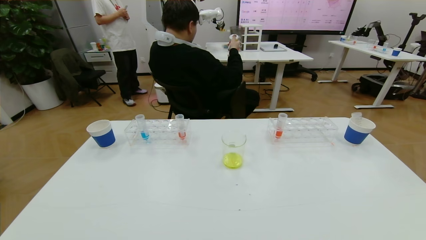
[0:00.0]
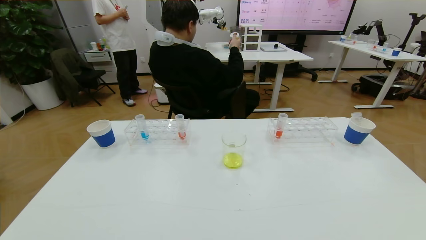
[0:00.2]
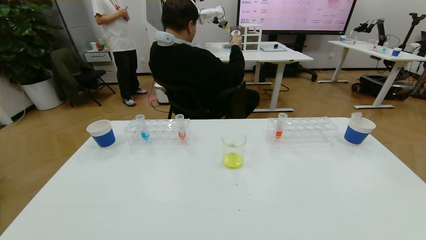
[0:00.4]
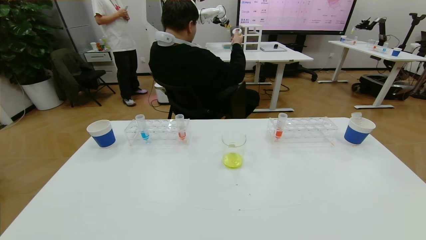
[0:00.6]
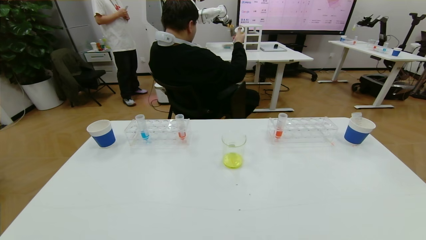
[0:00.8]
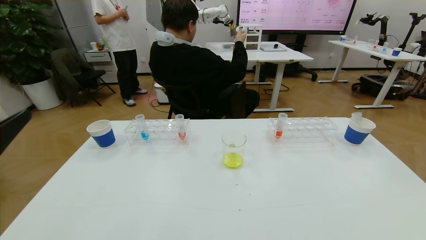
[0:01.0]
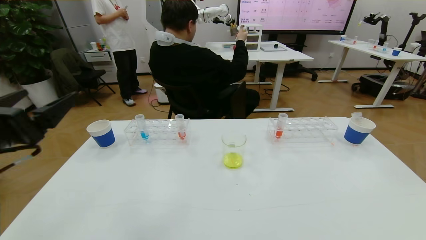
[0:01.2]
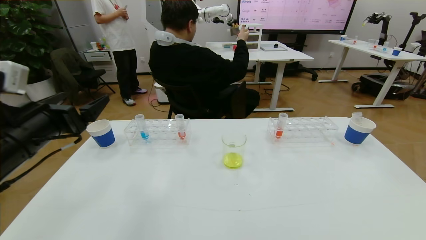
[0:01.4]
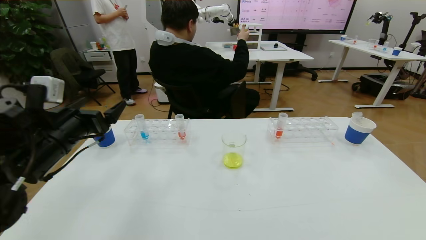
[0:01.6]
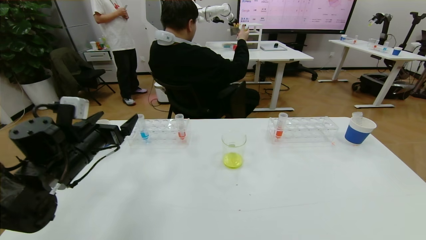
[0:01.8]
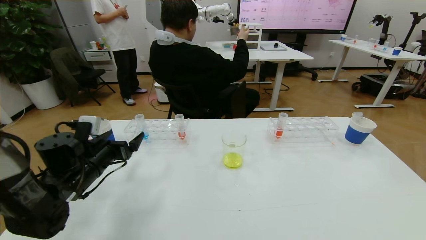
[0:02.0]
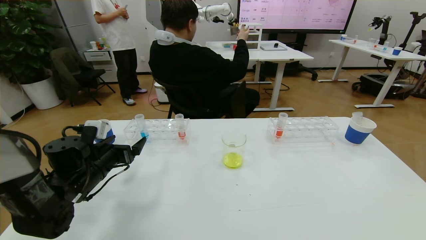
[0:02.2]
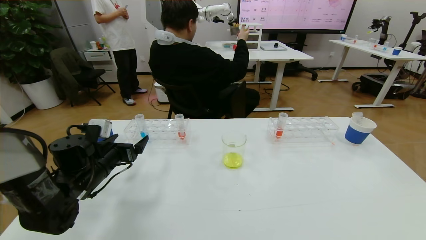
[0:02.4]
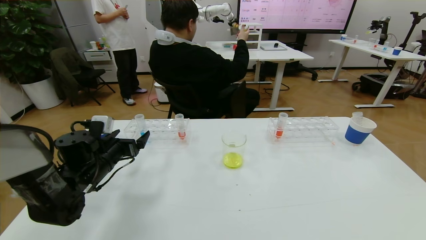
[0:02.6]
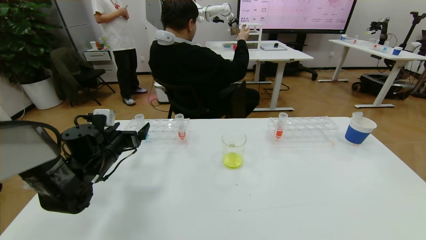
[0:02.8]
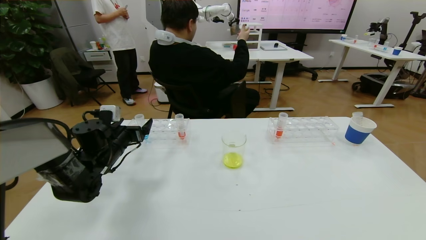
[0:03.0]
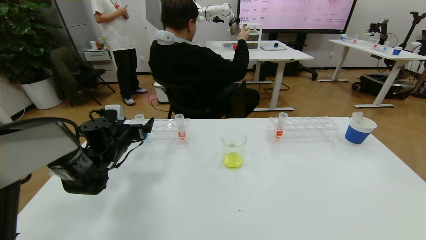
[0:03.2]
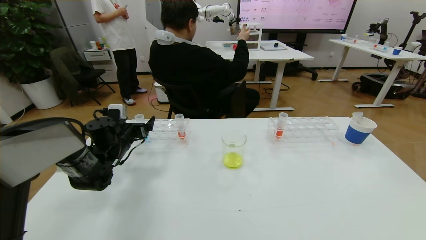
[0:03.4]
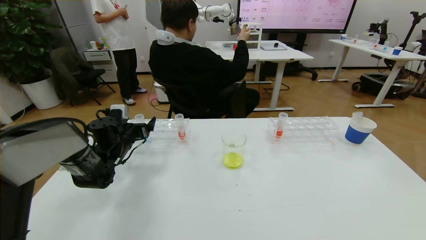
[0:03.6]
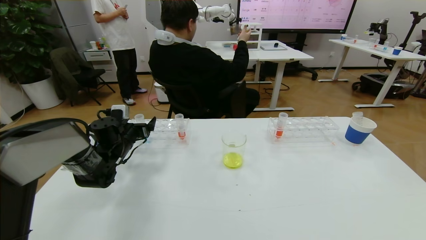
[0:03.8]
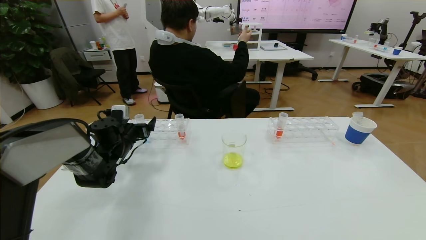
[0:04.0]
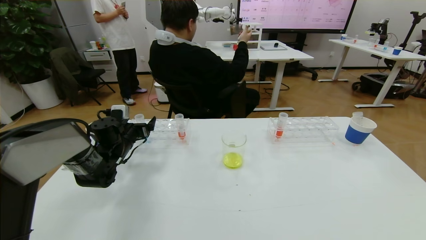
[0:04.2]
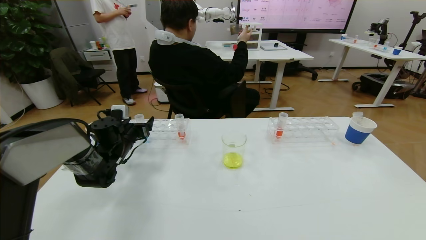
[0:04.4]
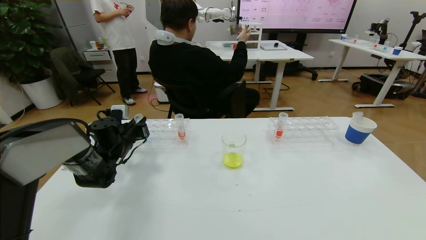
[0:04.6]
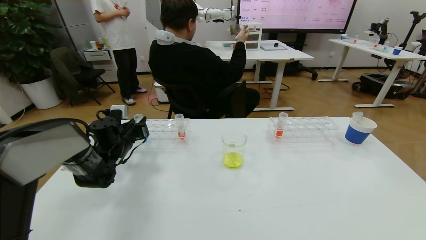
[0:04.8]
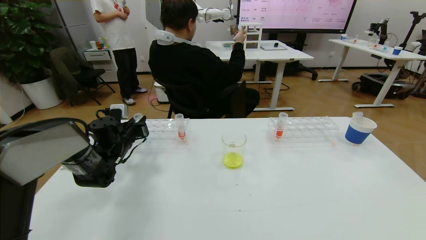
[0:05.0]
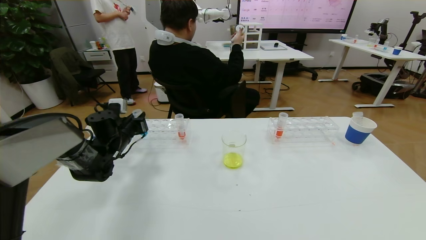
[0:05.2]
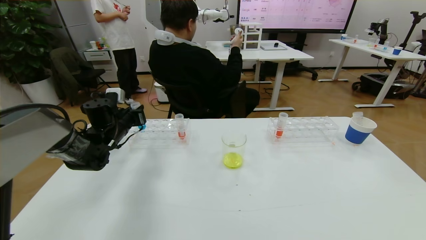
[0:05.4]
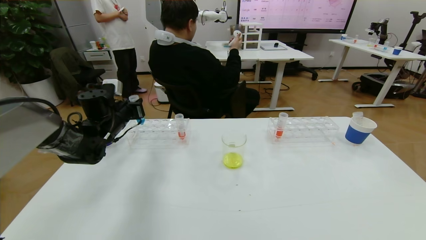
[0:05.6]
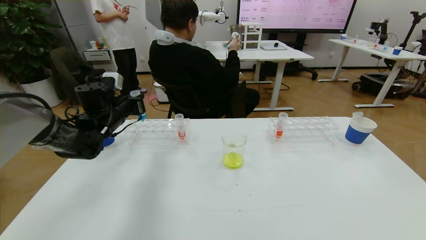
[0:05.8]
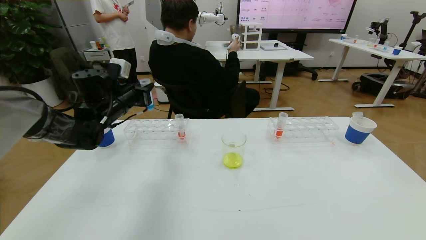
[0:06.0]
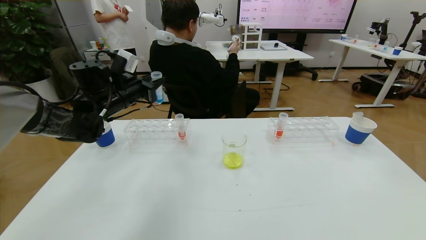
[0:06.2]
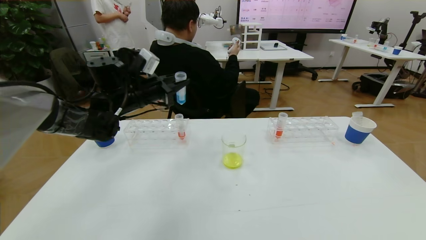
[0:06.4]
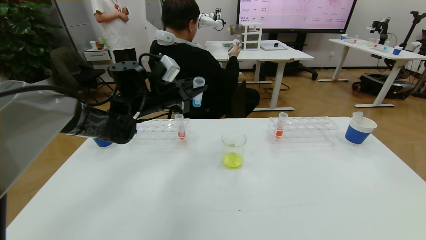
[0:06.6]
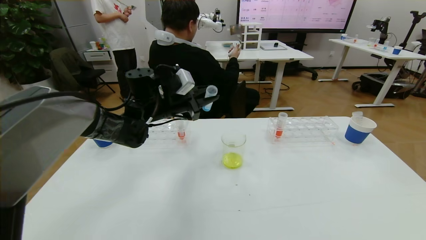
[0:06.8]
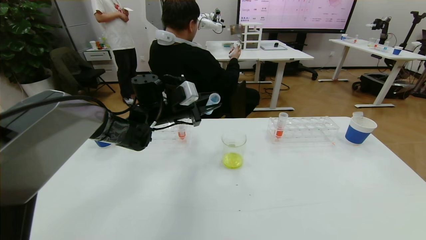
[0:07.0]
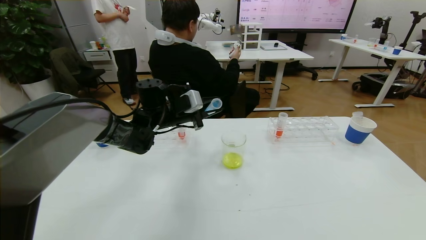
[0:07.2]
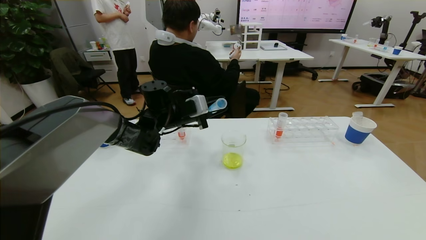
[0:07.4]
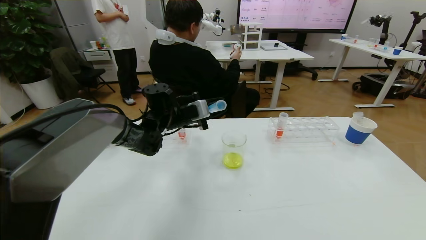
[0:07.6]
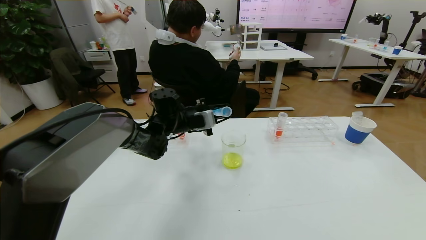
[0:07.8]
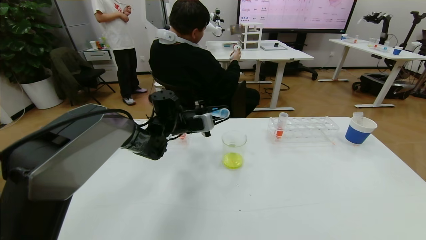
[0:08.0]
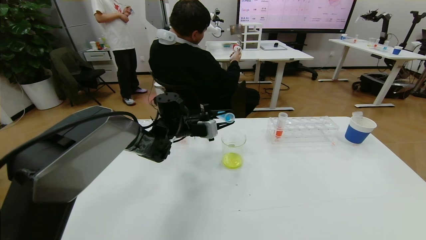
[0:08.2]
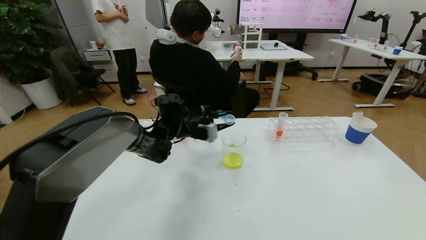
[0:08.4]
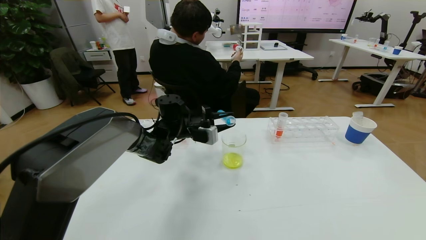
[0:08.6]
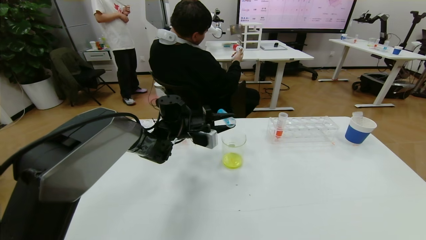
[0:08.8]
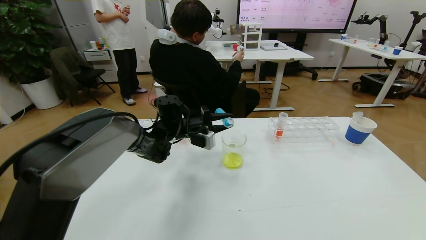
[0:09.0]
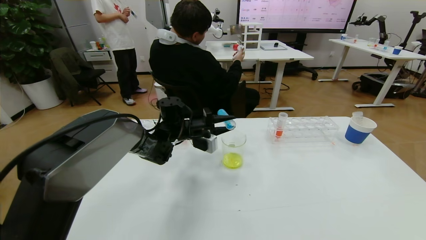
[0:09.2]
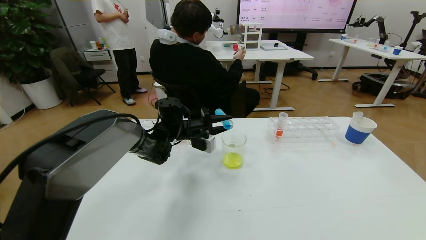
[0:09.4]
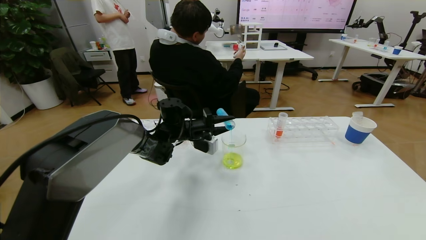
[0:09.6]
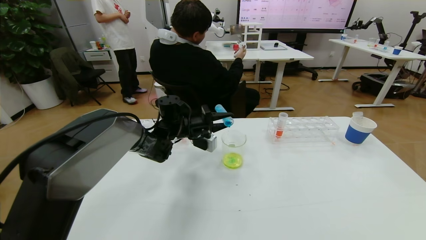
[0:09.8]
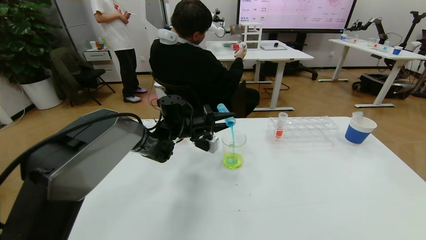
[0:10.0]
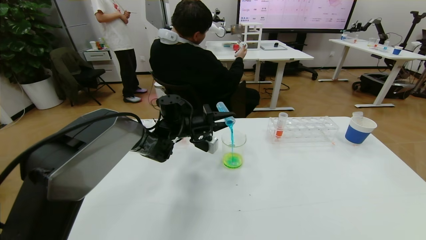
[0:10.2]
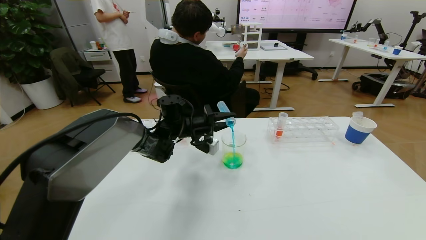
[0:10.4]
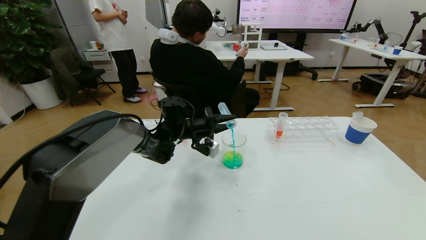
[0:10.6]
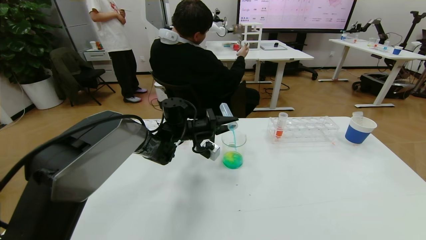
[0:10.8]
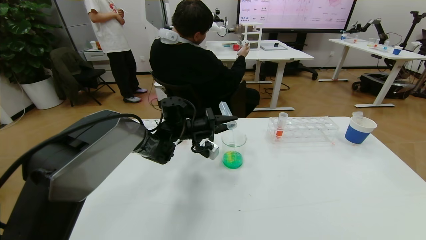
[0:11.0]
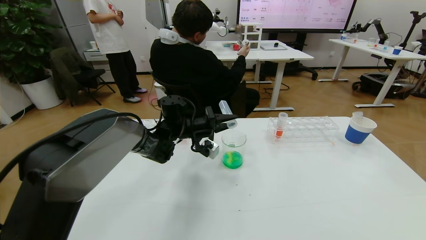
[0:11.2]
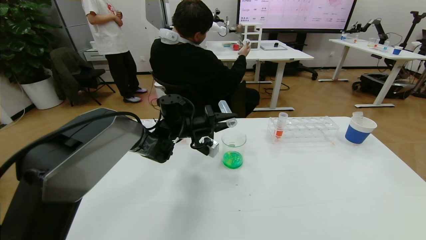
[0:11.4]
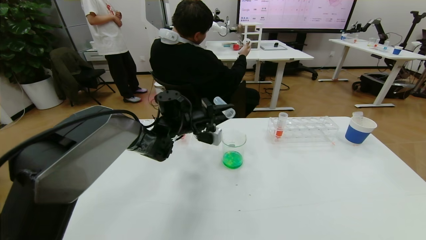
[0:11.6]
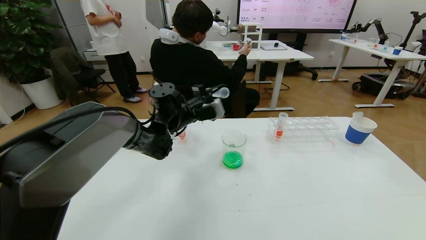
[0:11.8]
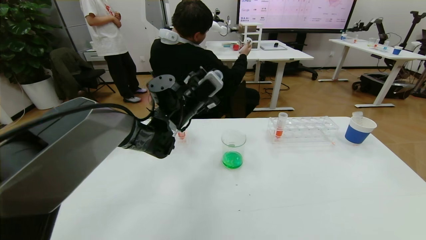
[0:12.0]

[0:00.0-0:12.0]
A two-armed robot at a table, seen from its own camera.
Task of the whole recording: pick up the test tube with yellow pigment and the test tube with blue pigment by grippers and pour them into the beaker.
0:00.0 to 0:01.6: The left gripper shifts some 30 cm forward.
0:01.6 to 0:03.0: The left gripper travels forward and downward by some 15 cm.
0:03.0 to 0:04.4: The left gripper moves about 5 cm.
0:04.4 to 0:06.0: The left gripper heads upward, covering roughly 15 cm, and closes up.
0:06.0 to 0:07.6: The left gripper goes approximately 15 cm to the right.
0:09.0 to 0:10.4: The grippers move only a little.
0:10.4 to 0:12.0: The left gripper heads upward, covering roughly 10 cm.

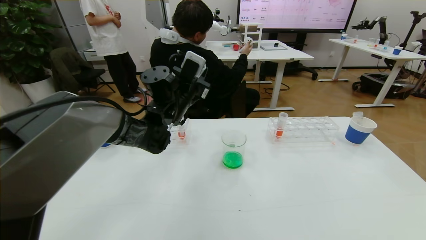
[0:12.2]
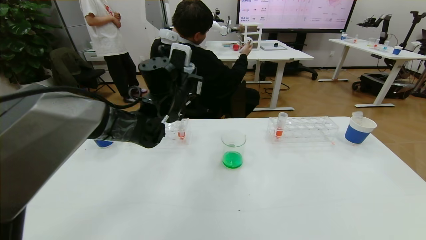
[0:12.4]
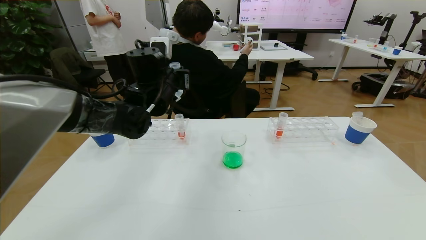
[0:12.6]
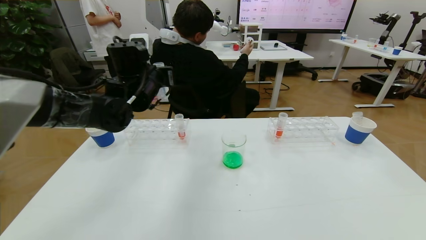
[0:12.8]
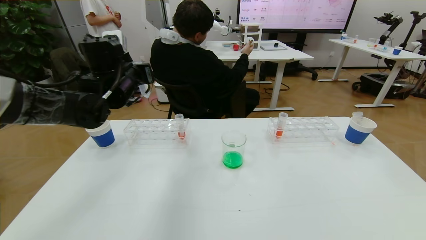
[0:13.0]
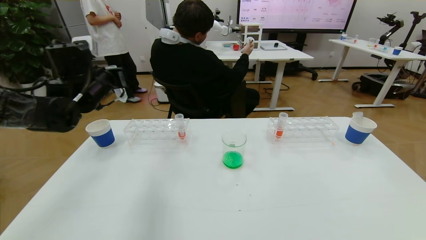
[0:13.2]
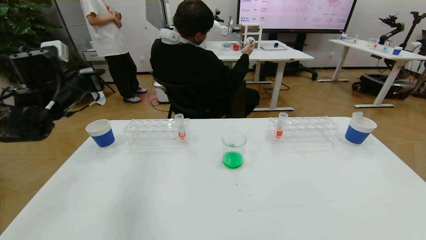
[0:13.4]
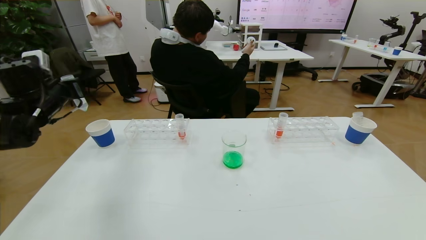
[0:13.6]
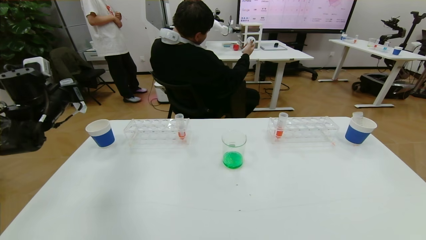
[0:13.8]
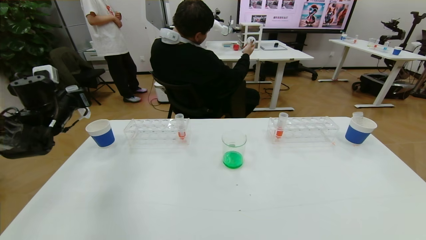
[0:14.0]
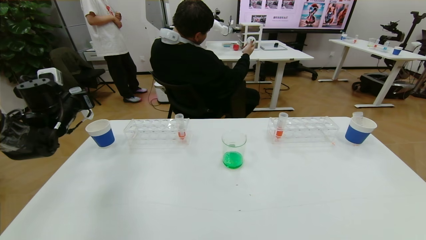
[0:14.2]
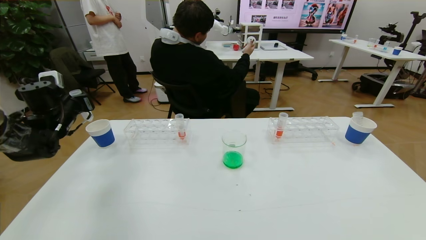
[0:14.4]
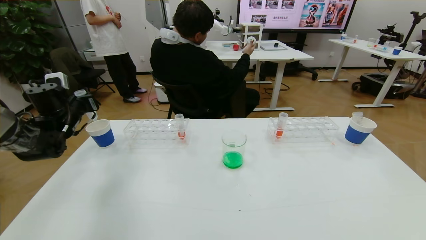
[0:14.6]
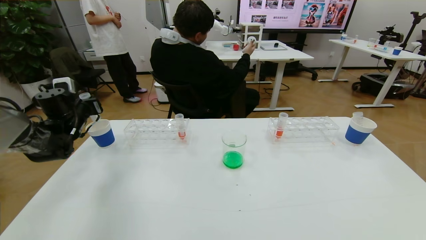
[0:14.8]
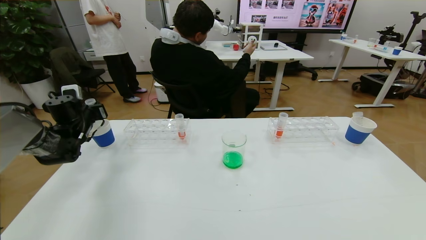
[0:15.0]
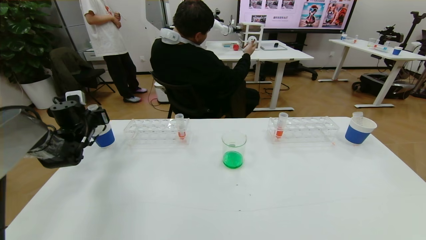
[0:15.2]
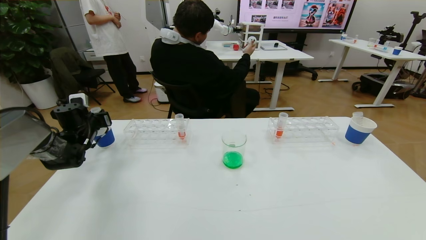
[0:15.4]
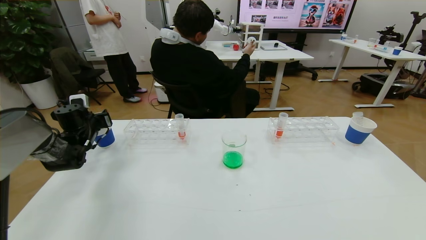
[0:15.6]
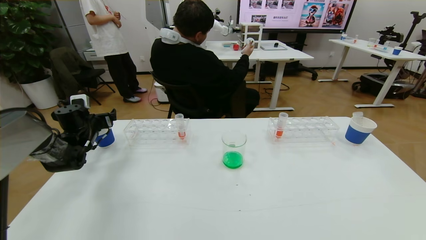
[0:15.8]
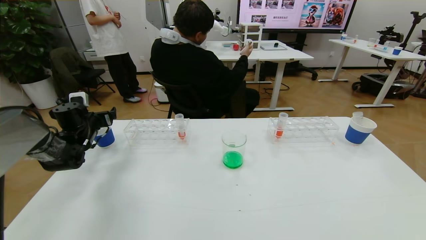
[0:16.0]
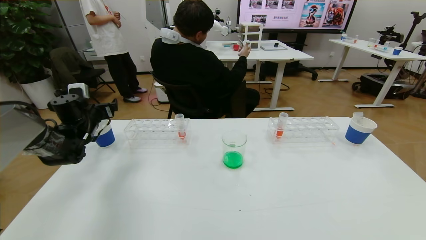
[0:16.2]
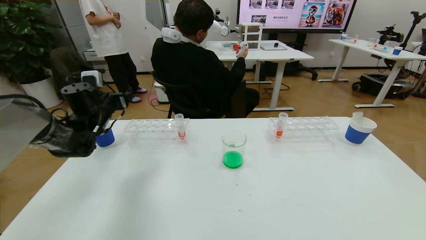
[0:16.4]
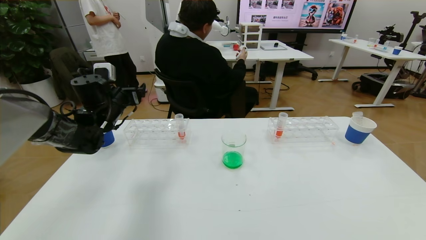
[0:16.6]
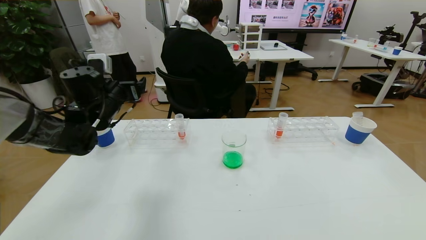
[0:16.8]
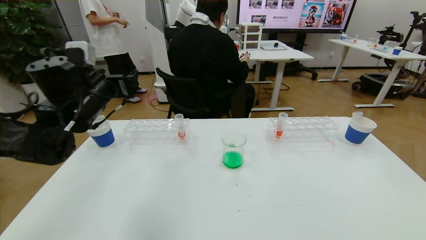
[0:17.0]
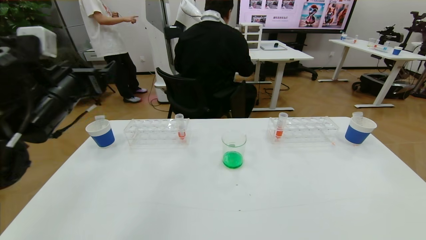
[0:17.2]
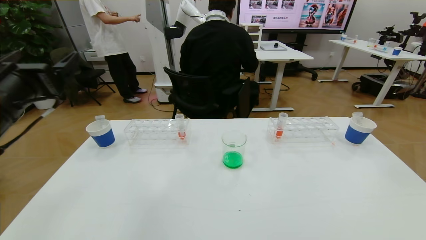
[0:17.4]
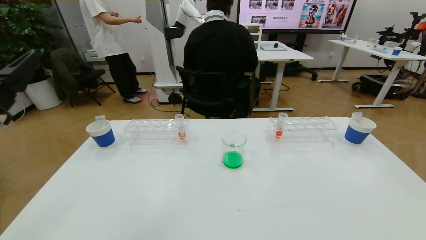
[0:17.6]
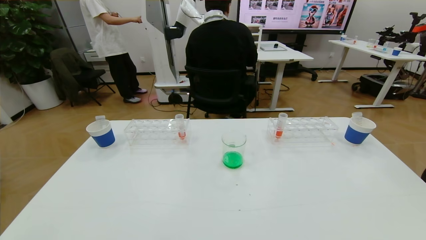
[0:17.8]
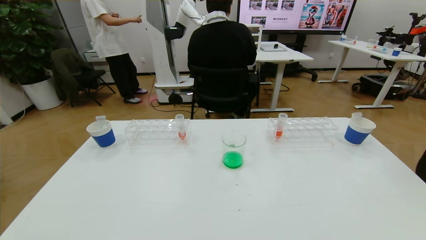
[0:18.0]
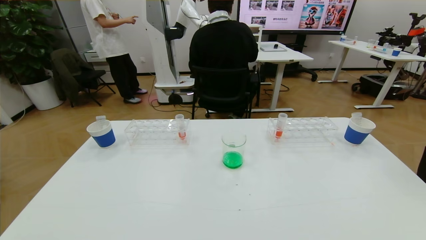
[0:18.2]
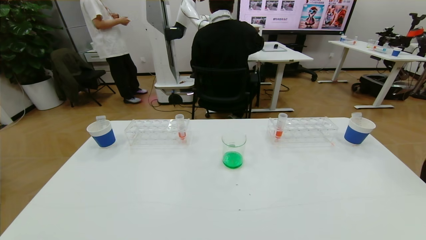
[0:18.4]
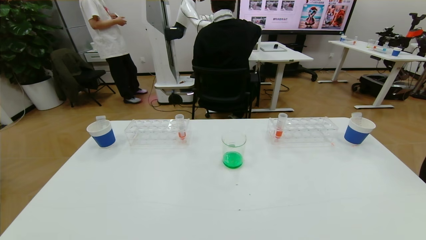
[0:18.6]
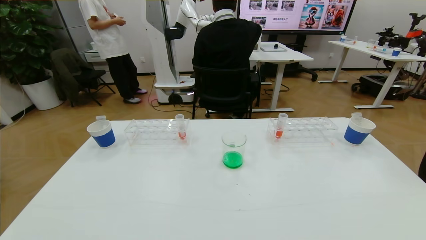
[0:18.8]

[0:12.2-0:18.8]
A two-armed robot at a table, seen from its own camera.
Task of the whole recording: pick up the test tube with yellow pigment and the test tube with blue pigment by grippers and pour them into the beaker.
0:12.2 to 0:13.8: The left gripper travels to the left by approximately 30 cm.
0:13.8 to 0:15.4: The left gripper heads downward and forward, covering approximately 15 cm.
0:15.4 to 0:17.2: The left gripper moves upward, backward and to the right, some 25 cm, and opens.
0:17.2 to 0:18.8: The left gripper moves backward and downward, about 35 cm.
